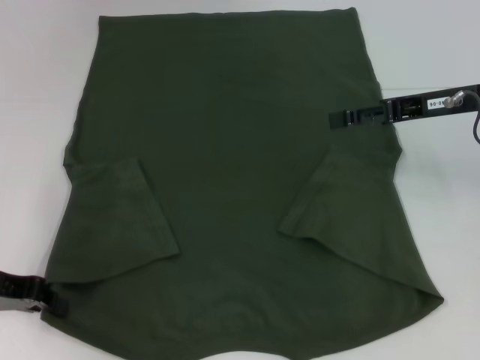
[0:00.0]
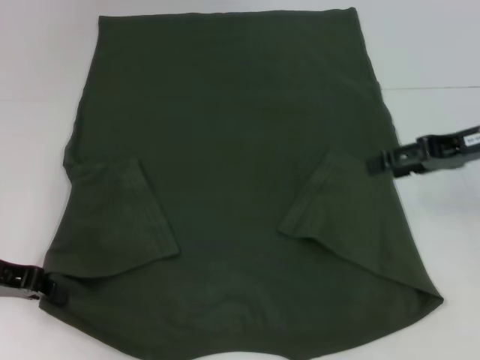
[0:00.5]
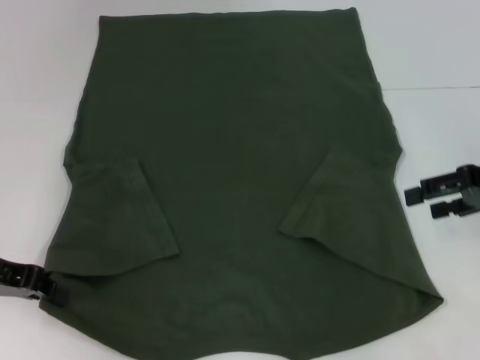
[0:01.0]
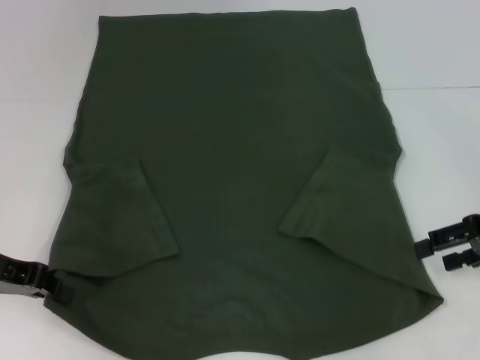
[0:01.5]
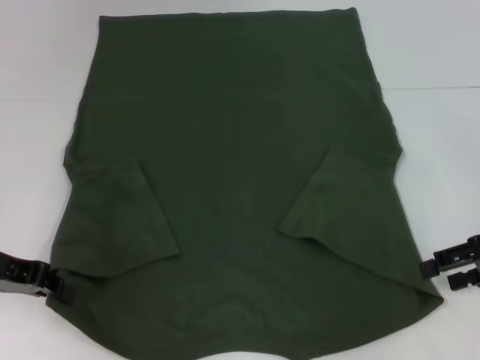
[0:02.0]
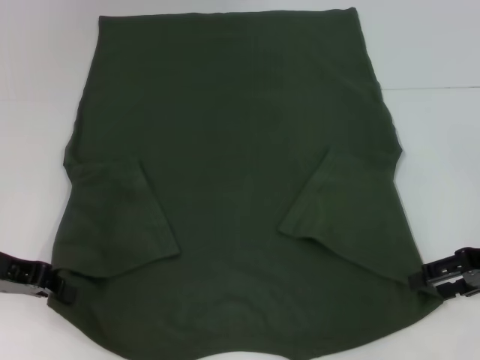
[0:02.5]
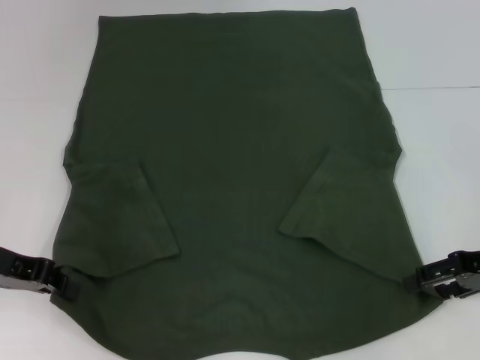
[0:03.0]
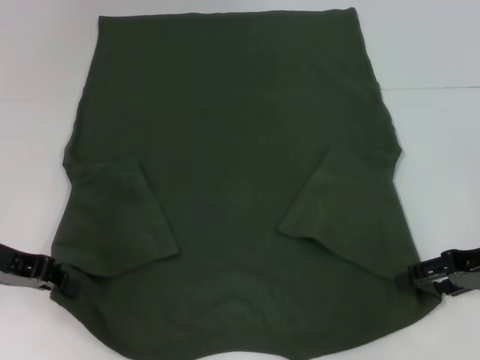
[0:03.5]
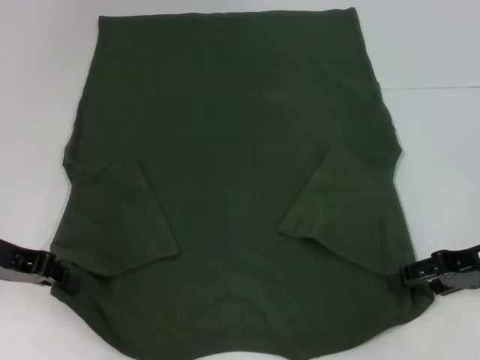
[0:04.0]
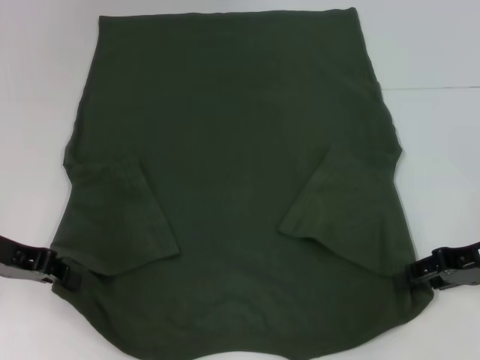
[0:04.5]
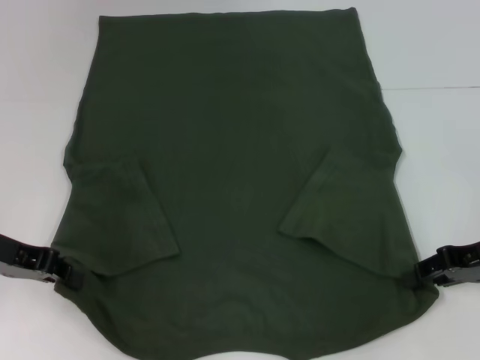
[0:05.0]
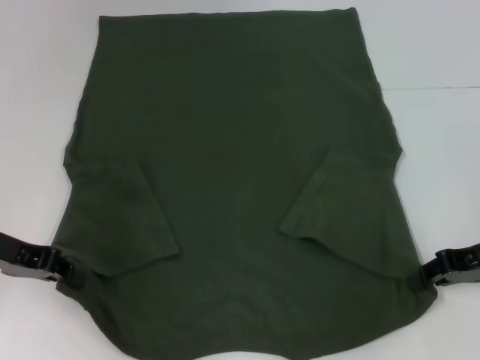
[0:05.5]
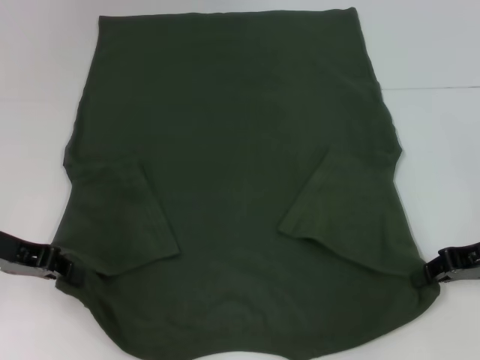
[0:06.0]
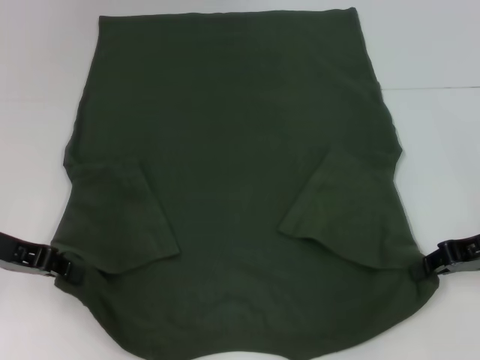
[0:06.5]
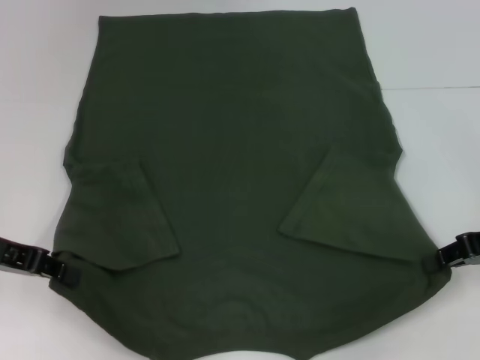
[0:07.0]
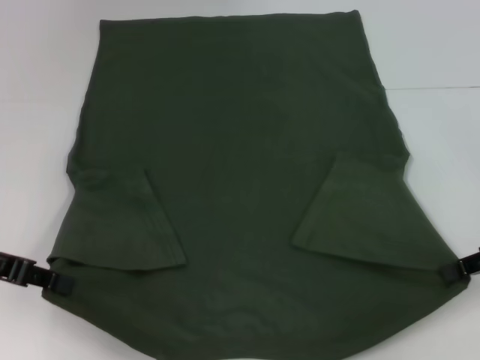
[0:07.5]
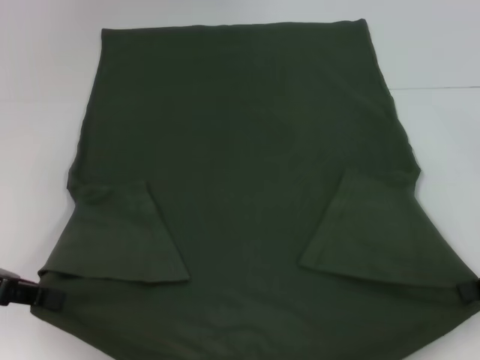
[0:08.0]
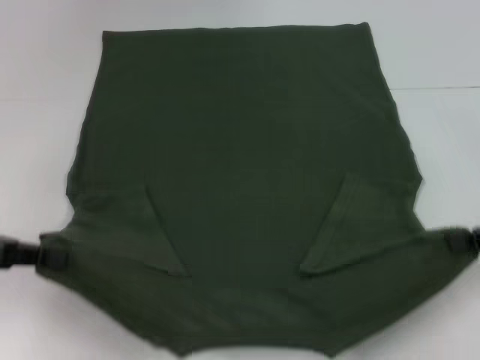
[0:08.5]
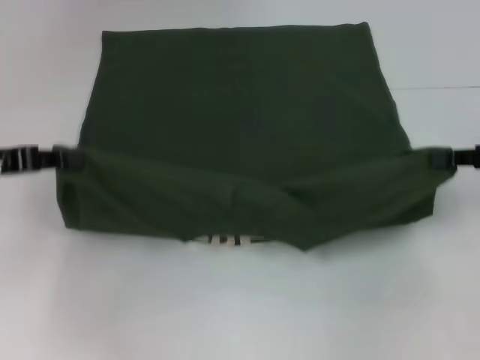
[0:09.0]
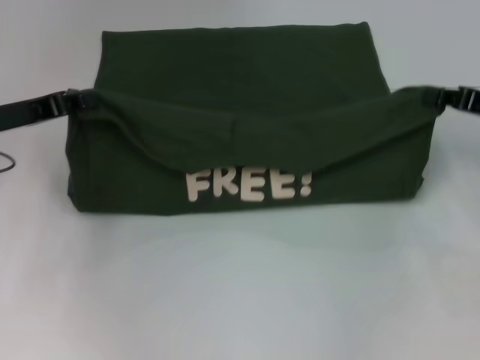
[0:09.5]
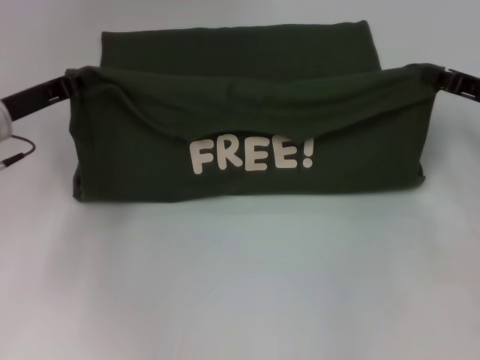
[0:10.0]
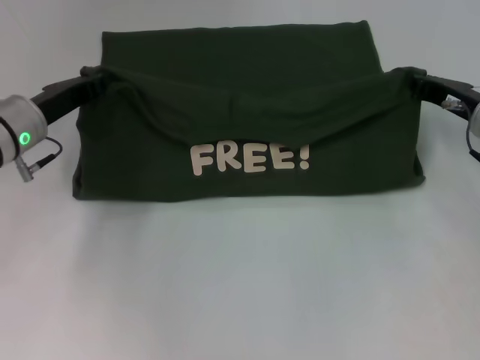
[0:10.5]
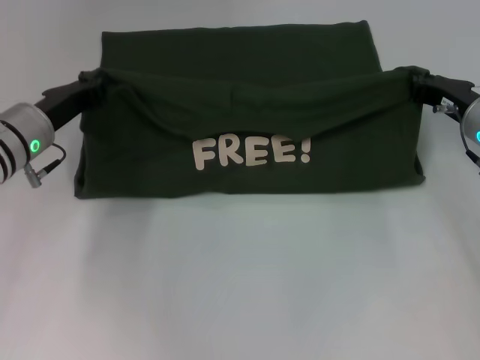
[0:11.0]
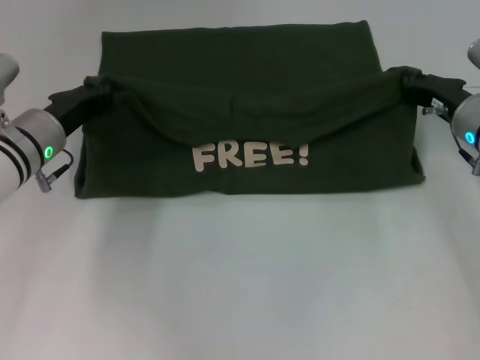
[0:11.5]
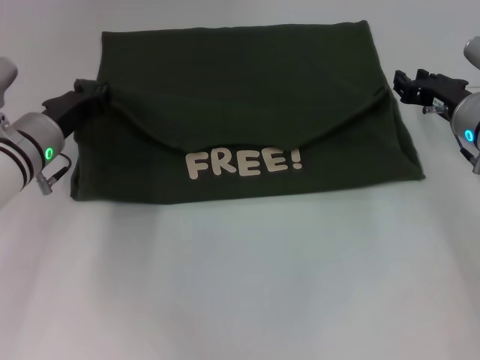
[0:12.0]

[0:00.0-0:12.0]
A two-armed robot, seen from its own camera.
Step, 0:00.0 to 0:06.0: Grab the bottom right corner with your right hand.
0:00.0 to 0:02.0: The right gripper is displaced backward, to the right and downward by roughly 15 cm.
0:02.0 to 0:04.0: The grippers move only a little.
0:04.0 to 0:06.0: The right gripper closes.
0:06.0 to 0:08.0: The left gripper ends up about 5 cm from where it was. Meanwhile the right gripper moves roughly 5 cm.
0:08.0 to 0:10.0: The left gripper travels forward and to the right by roughly 10 cm. Meanwhile the right gripper goes some 10 cm forward.
0:10.0 to 0:12.0: The right gripper goes some 5 cm to the left. Meanwhile the left gripper is displaced to the right by about 5 cm.

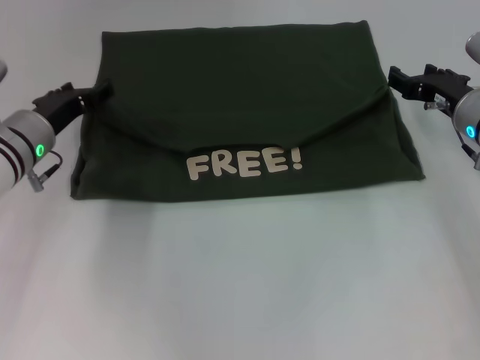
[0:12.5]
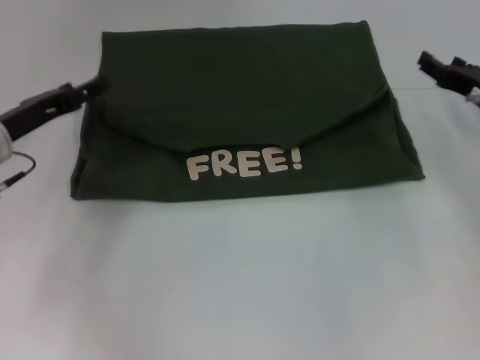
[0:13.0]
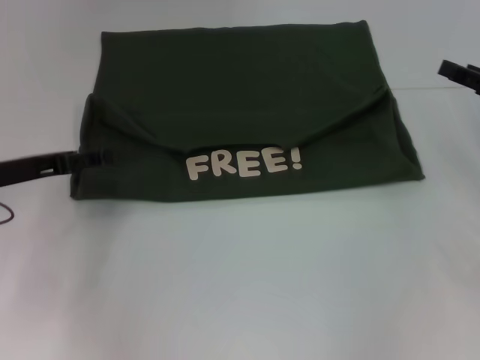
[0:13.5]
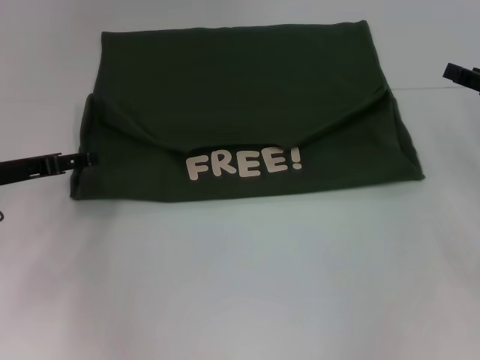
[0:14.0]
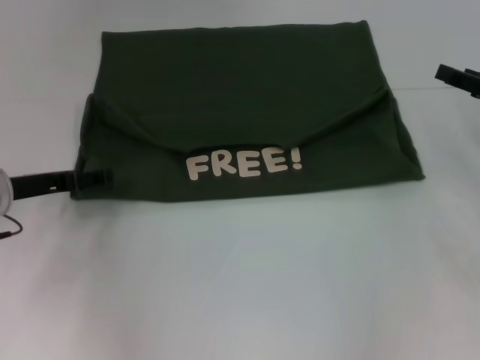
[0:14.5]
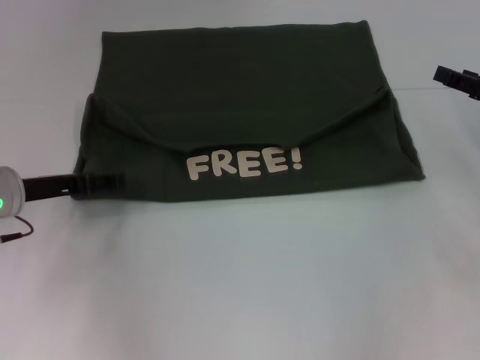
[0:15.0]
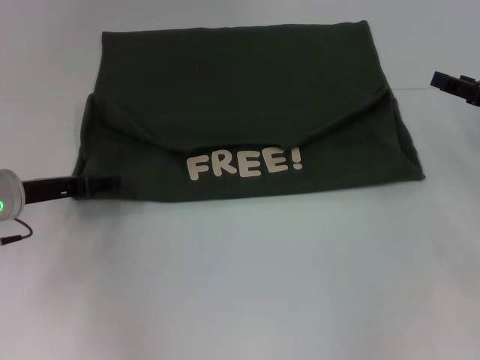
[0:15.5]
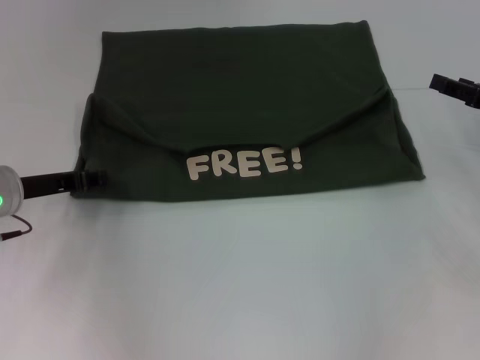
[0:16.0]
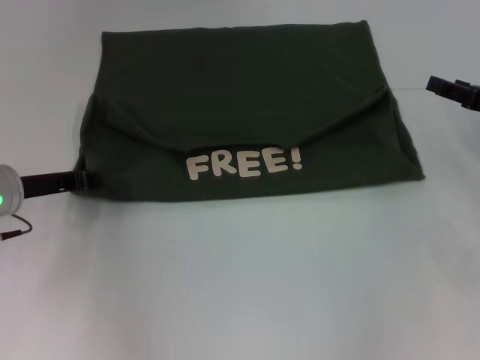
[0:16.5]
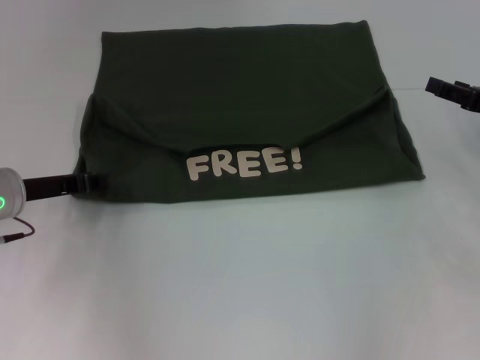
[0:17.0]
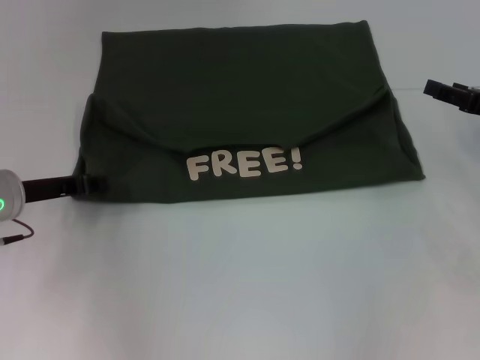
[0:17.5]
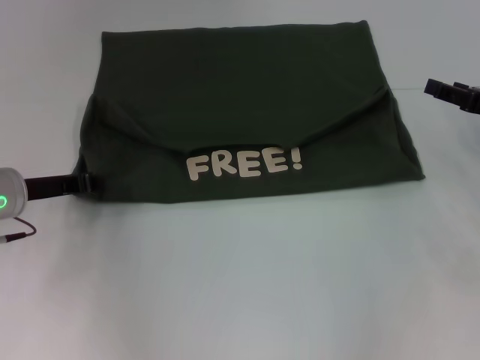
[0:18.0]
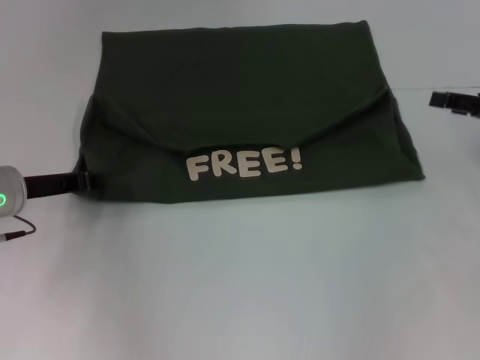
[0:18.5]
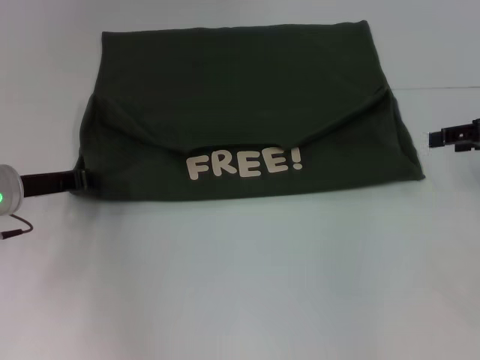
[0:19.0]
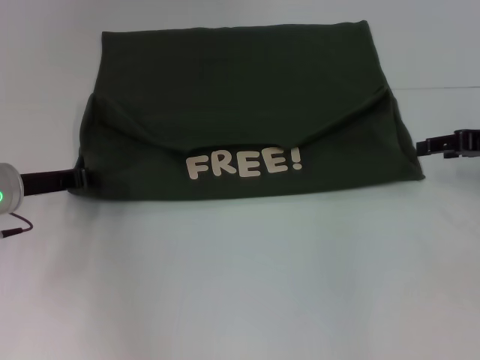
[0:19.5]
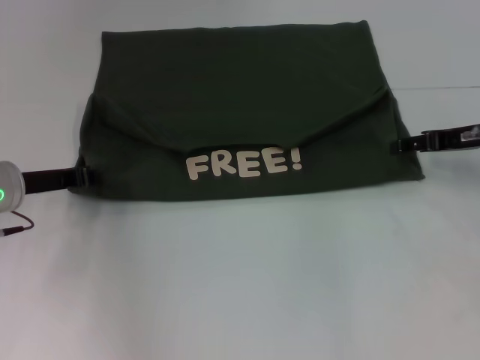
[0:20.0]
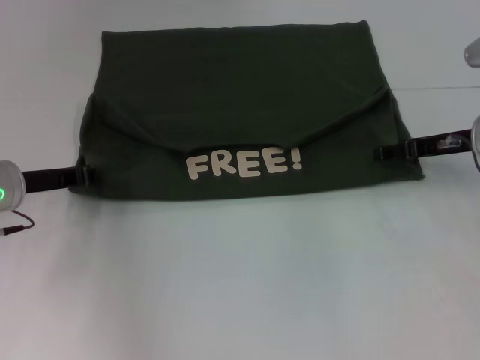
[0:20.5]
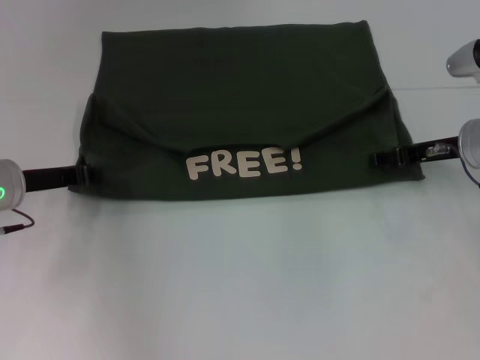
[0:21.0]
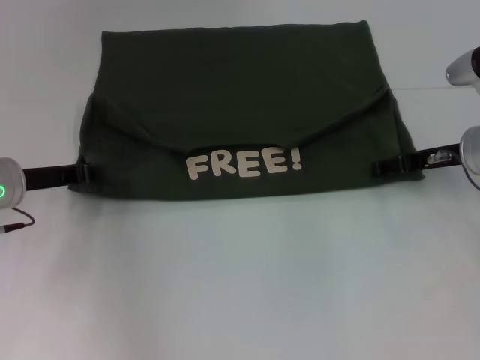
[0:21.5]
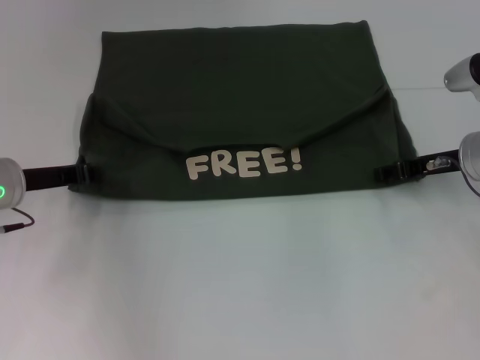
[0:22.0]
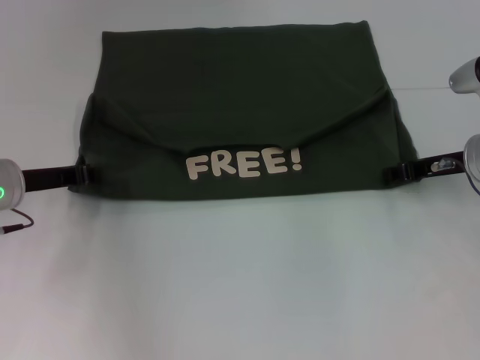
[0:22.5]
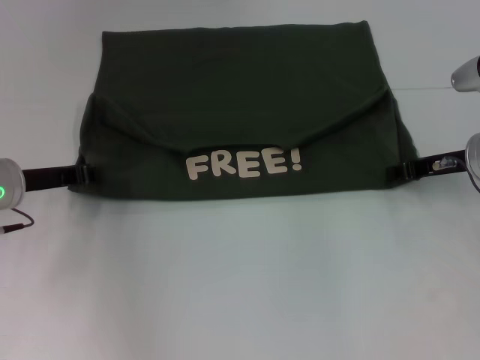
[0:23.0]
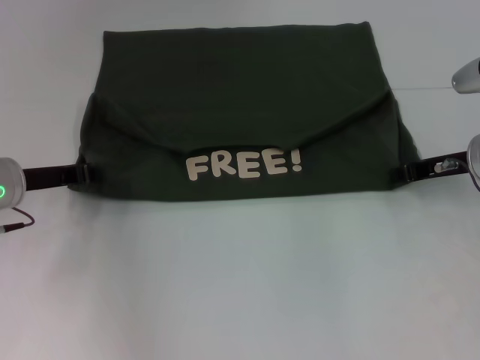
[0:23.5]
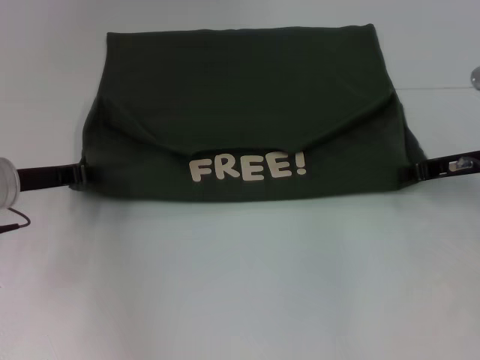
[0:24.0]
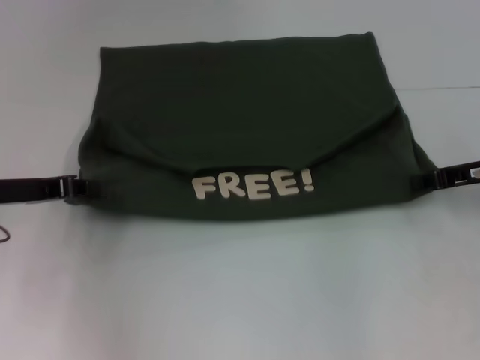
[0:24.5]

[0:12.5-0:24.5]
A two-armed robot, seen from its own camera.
0:12.5 to 0:14.5: The left gripper shifts by approximately 5 cm. The right gripper shifts about 10 cm to the right.
0:14.5 to 0:16.5: The left gripper closes its fingers.
0:16.5 to 0:18.5: The grippers move only a little.
0:18.5 to 0:20.5: The right gripper heads to the left, covering some 10 cm.
0:20.5 to 0:22.5: The right gripper closes.
0:22.5 to 0:24.5: The grippers move only a little.

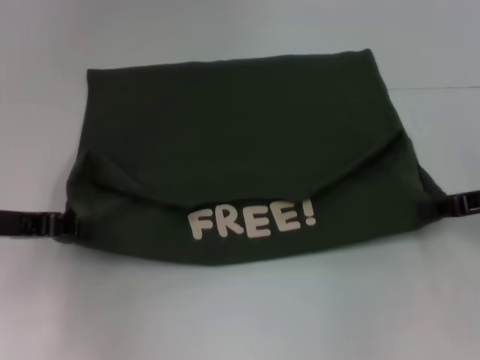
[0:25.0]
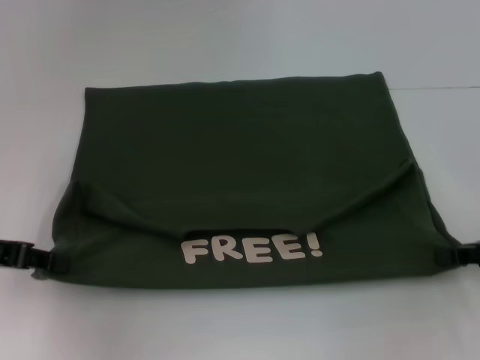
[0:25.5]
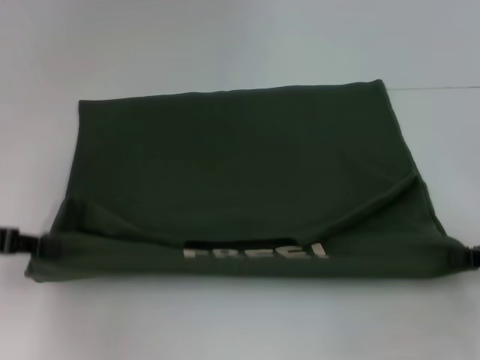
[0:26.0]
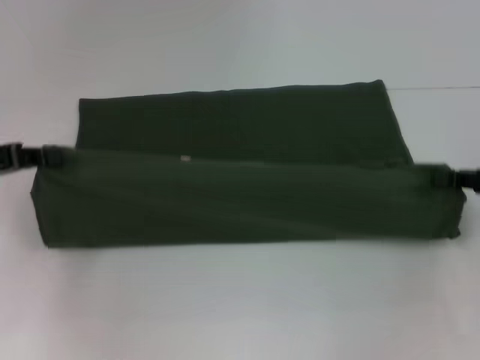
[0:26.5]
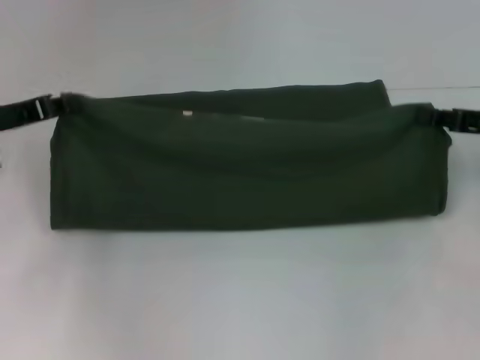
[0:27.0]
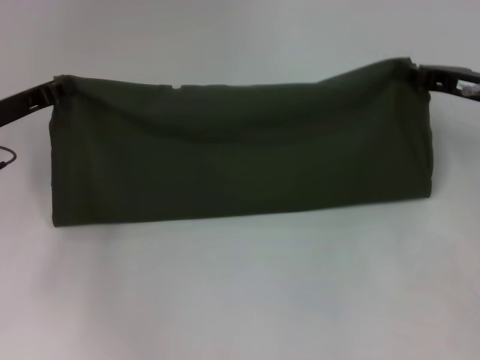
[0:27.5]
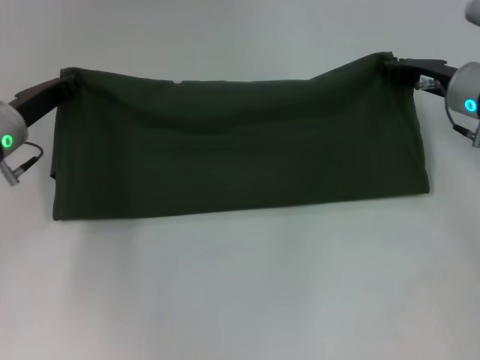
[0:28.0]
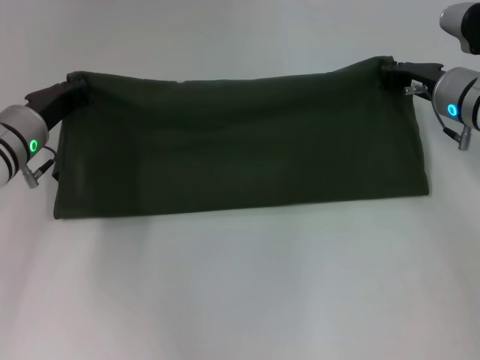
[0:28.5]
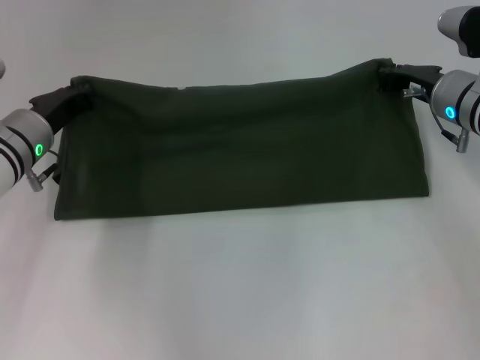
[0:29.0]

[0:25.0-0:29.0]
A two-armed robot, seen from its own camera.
0:25.0 to 0:27.0: The right gripper moves roughly 5 cm backward and comes back. Meanwhile the left gripper shifts approximately 5 cm forward.
0:27.0 to 0:29.0: The left gripper moves to the right and downward, roughly 10 cm. The right gripper travels to the left and forward by some 10 cm.
